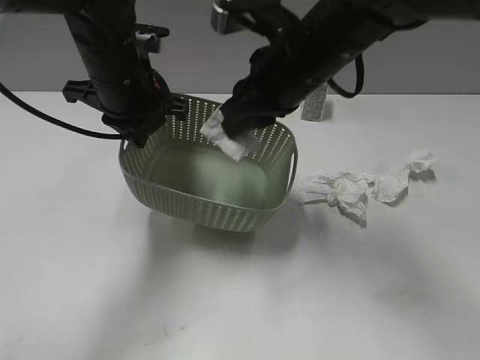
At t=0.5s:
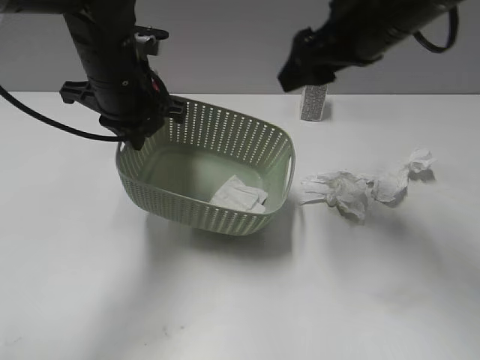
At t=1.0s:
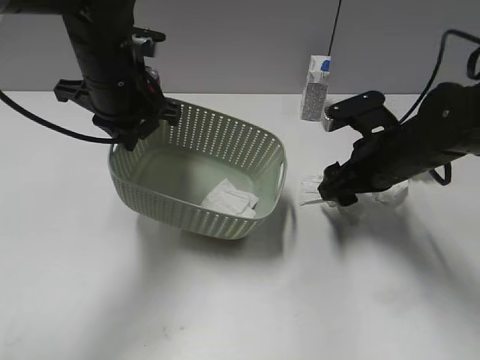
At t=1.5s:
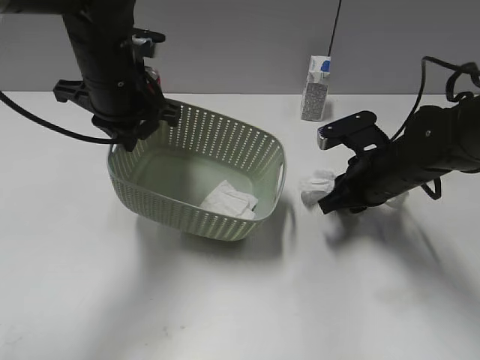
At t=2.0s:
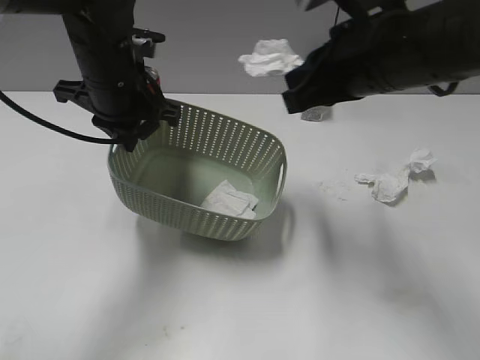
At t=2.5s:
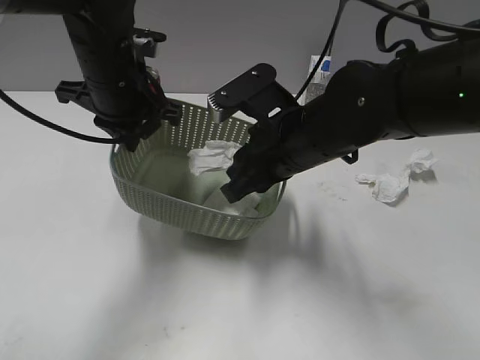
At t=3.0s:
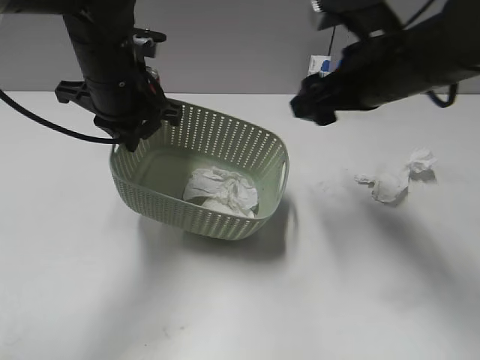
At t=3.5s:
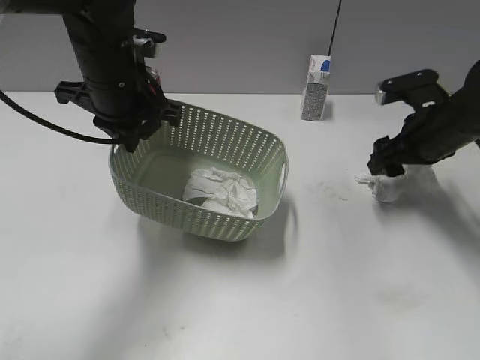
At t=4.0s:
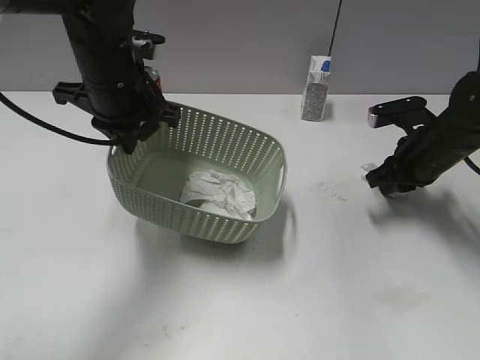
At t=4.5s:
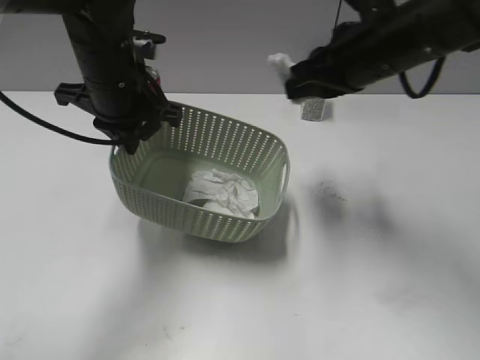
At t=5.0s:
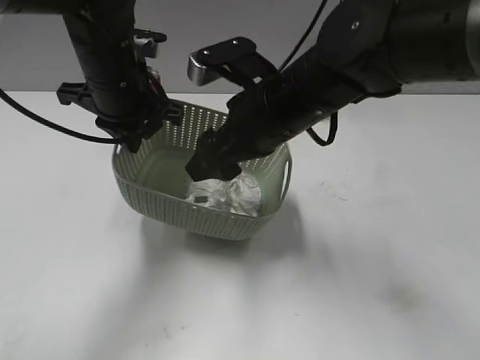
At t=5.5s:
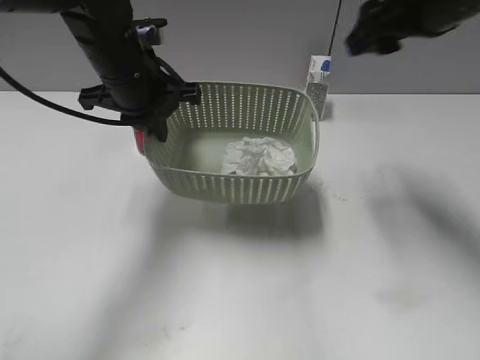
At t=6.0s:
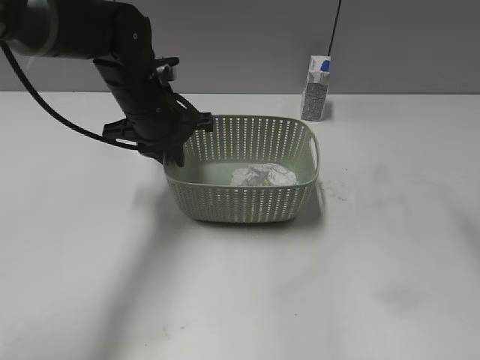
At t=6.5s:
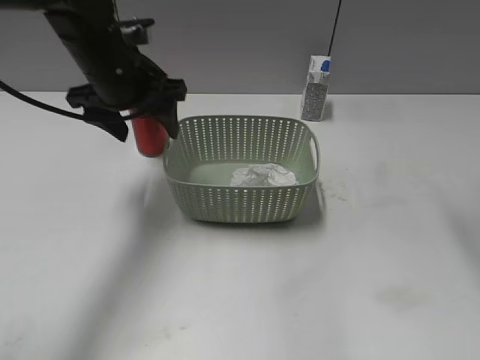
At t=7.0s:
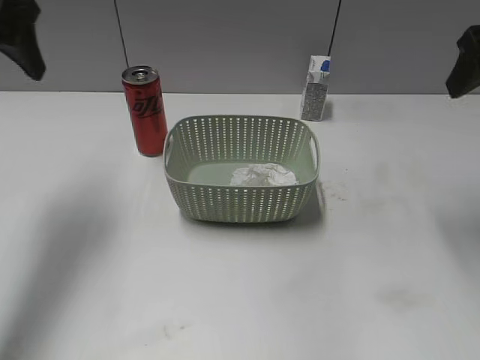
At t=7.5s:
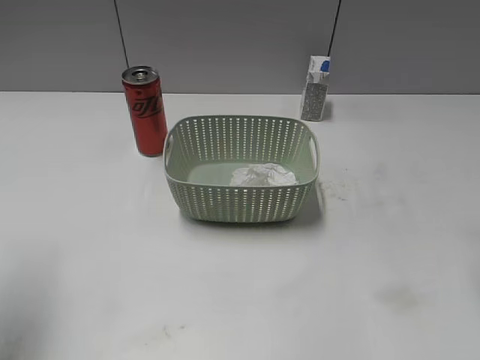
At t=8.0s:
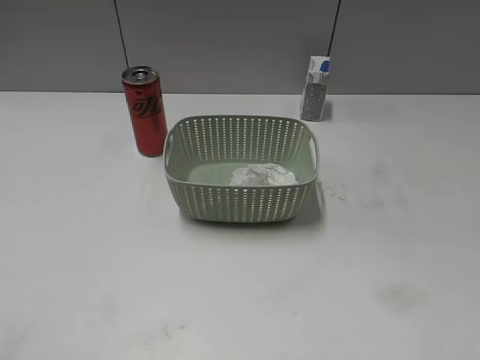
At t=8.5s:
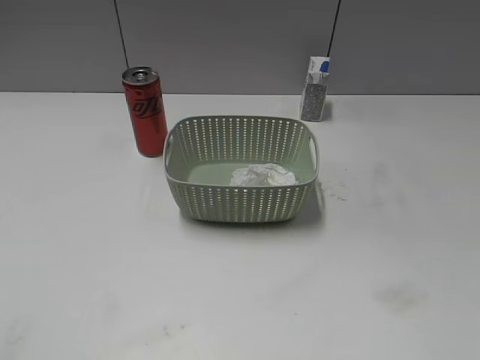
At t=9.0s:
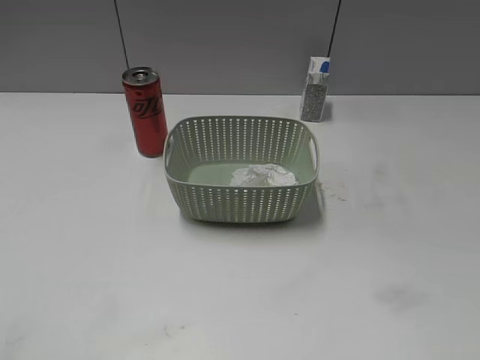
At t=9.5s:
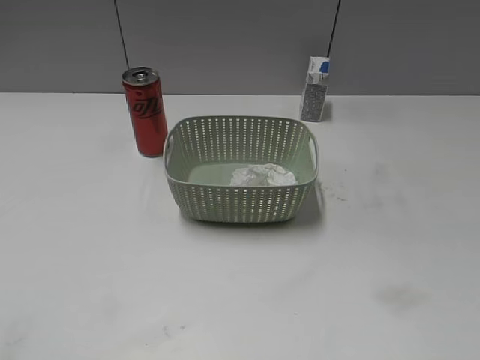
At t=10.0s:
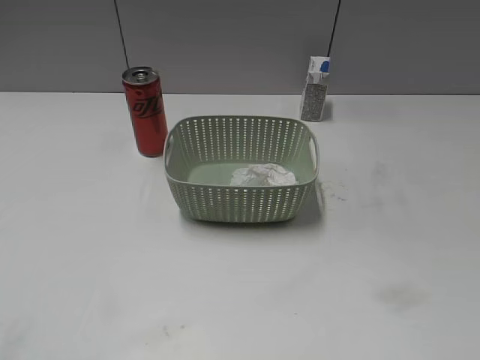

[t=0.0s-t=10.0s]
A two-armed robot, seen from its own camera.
Step, t=0.5s to t=1.5s: Grasp the waste paper with right gripper.
Step, t=2.0s to t=2.5s: Place the waste paper in the basket with right gripper.
Step, t=3.0s to t=4.0s: Grasp the waste paper with right gripper.
Step, t=4.5s to t=5.0s: Place the waste paper in the basket with right gripper.
Step, t=5.5s to t=6.5s: Place the basket on the table with left gripper.
t=0.0s to t=2.0s: The right gripper swings up and down, about 20 cm each way, with 2 reversals, and closes its fingers.
t=2.0s to t=4.0s: The right gripper moves downward, to the right and forward, about 25 cm, and opens, then closes once more.
t=4.0s to t=6.0s: The left gripper moves downward, approximately 5 cm; the right gripper goes up and down, some 30 cm each way, reversing 2 times, and opens its fingers.
t=6.0s to t=8.0s: The right gripper moves backward and downward, roughly 20 cm; the left gripper moves backward and to the left, some 40 cm, and opens its fingers.
